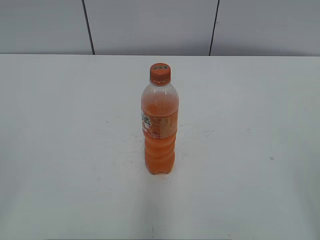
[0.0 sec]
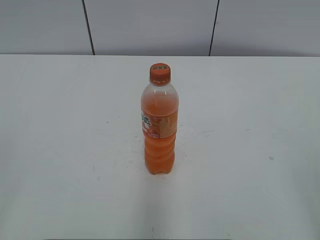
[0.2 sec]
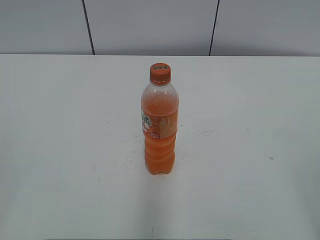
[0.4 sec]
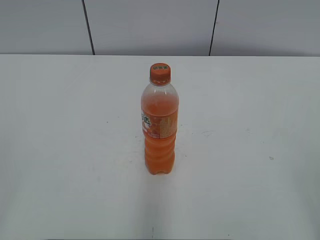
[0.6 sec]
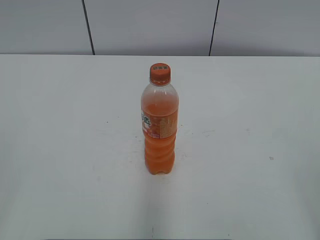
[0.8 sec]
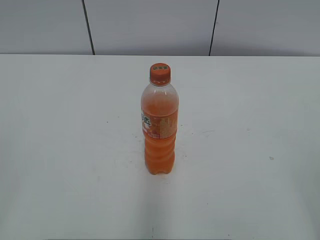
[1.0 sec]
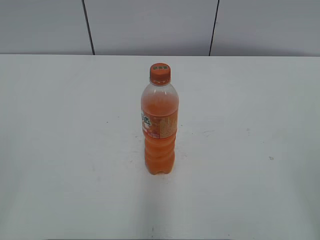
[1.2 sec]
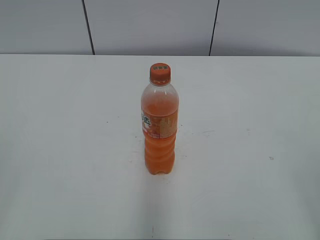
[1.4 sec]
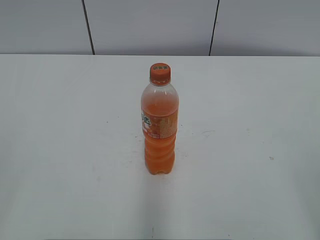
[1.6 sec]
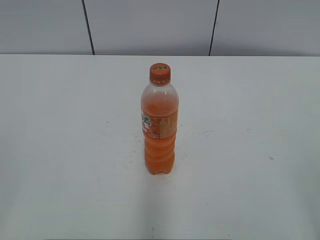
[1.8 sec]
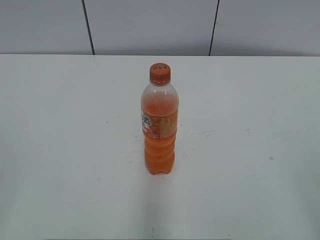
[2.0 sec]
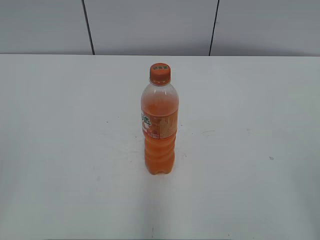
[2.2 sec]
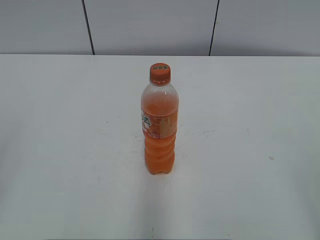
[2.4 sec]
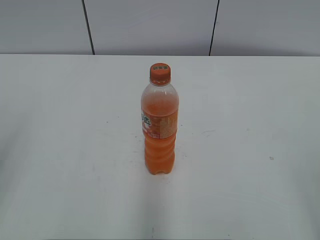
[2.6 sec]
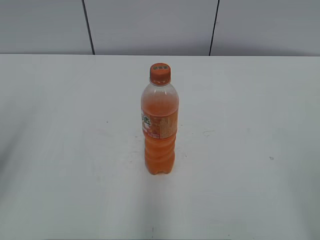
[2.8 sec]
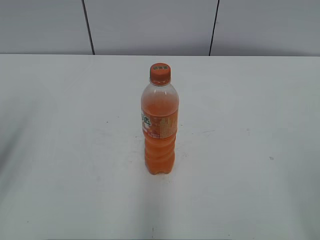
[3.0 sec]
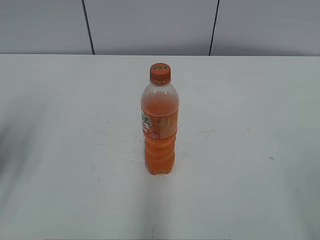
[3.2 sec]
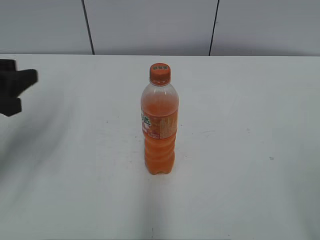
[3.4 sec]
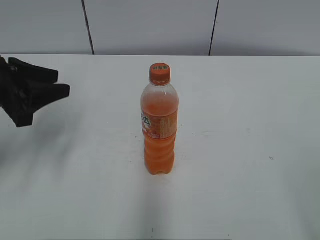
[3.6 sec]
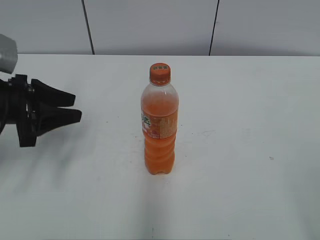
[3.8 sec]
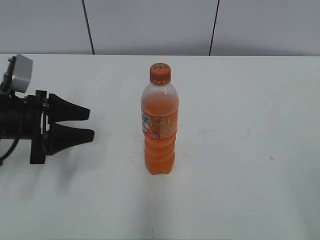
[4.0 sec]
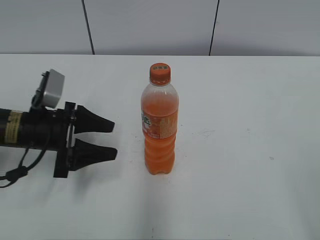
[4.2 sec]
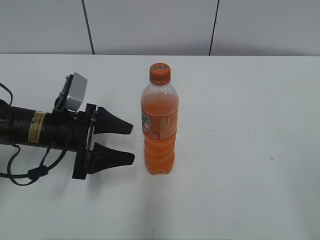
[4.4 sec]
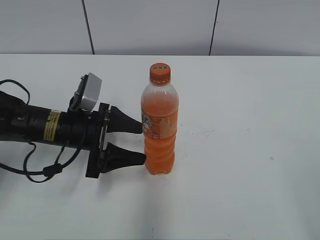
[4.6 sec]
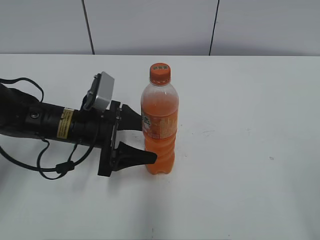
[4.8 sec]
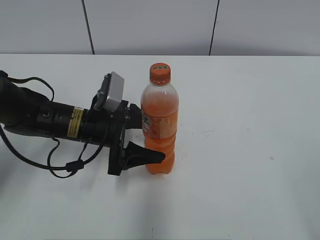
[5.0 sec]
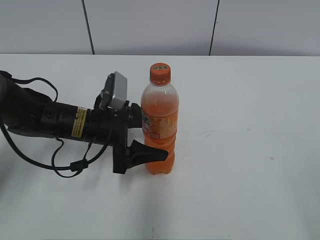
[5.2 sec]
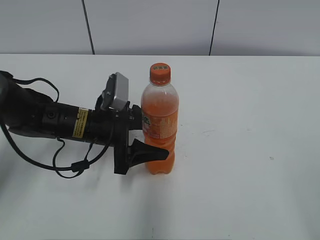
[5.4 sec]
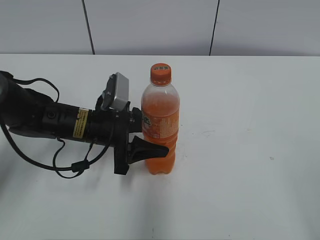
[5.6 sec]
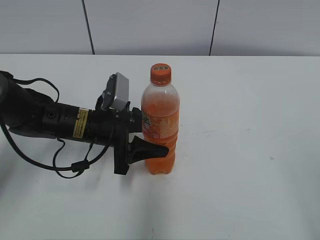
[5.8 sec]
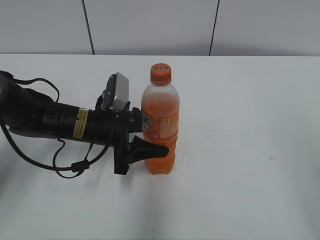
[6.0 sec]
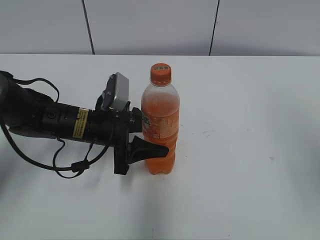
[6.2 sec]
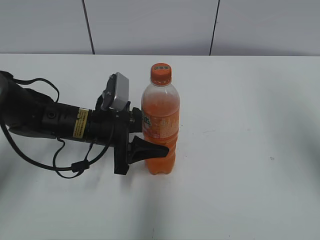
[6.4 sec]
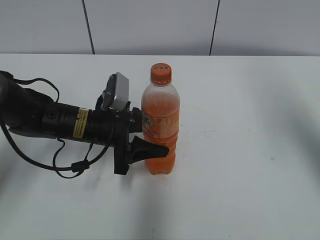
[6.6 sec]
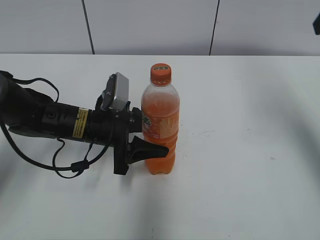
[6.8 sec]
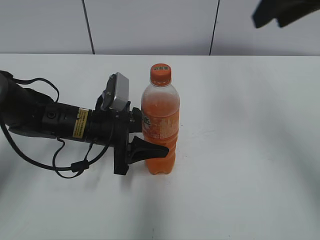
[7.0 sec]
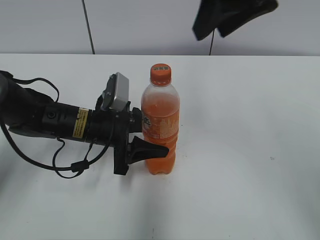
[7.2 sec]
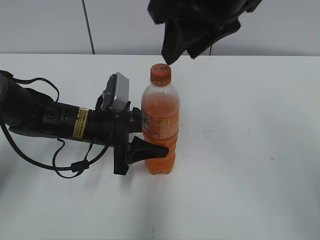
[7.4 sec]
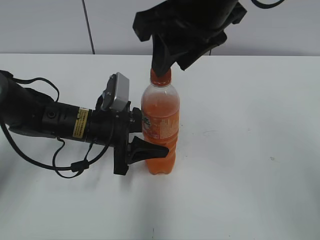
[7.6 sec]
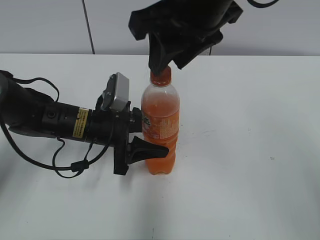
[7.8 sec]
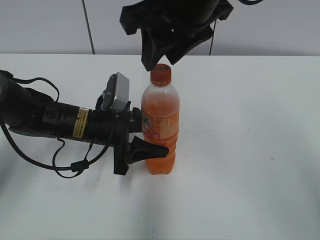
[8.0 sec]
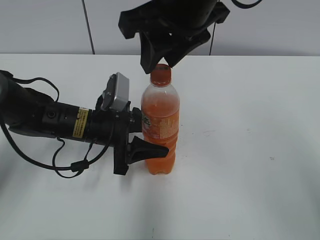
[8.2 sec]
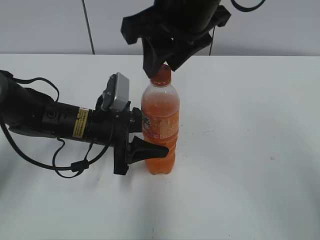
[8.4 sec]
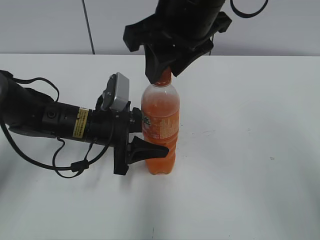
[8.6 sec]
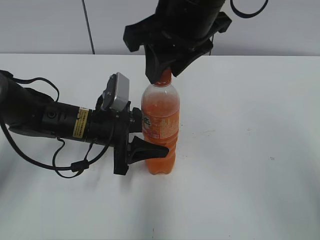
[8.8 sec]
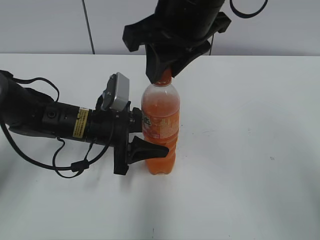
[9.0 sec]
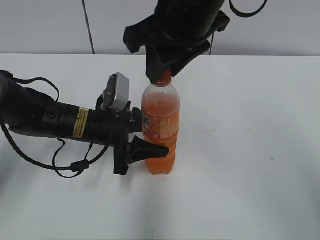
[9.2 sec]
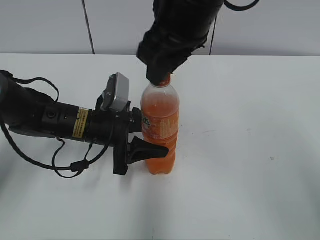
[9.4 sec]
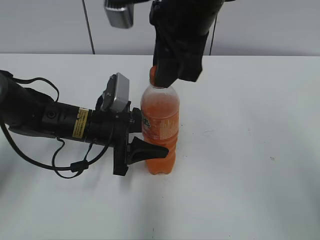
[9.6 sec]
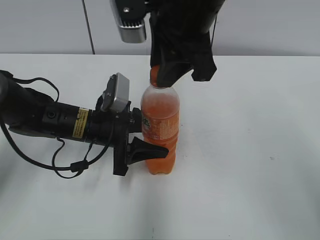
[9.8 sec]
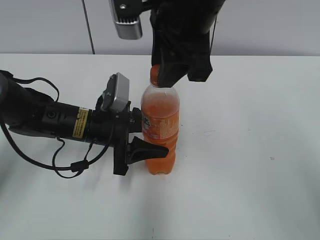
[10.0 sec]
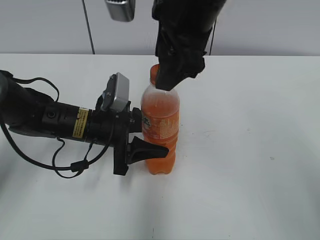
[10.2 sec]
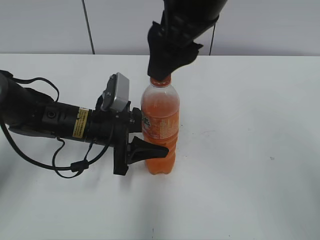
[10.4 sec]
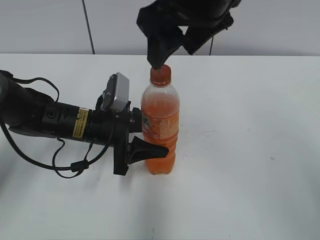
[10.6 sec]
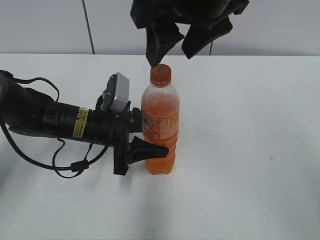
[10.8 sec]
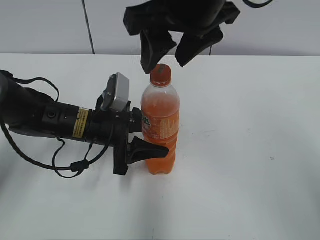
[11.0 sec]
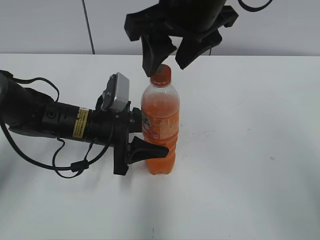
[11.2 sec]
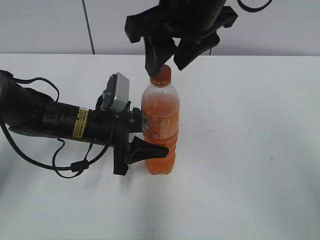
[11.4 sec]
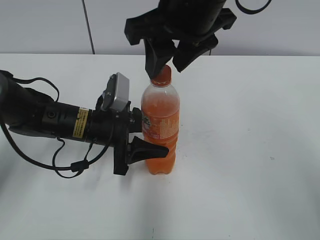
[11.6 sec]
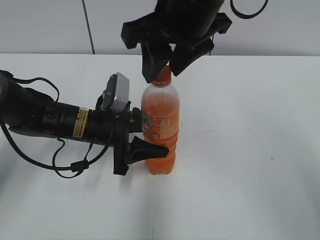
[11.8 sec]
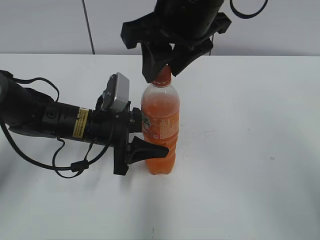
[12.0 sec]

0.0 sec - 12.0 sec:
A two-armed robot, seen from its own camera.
Step, 0.0 sec - 5.6 sec: Grab the Mirinda with the left hand.
3.0 sec - 4.4 sec: The left gripper heads downward, forward and to the right, covering roughly 25 cm, and opens its fingers.
4.4 sec - 6.0 sec: The right gripper heads upward, covering some 5 cm. The left gripper shifts about 5 cm to the right, and closes.
6.0 sec - 7.6 sec: The right gripper moves to the left and forward, some 35 cm, and closes.
7.6 sec - 9.0 sec: The grippers make only small movements.
9.0 sec - 10.4 sec: The right gripper opens.
10.4 sec - 12.0 sec: The right gripper closes its fingers.

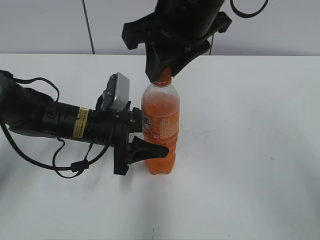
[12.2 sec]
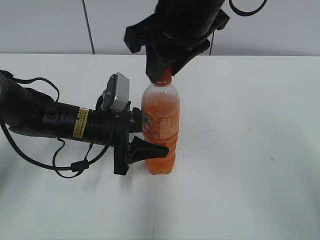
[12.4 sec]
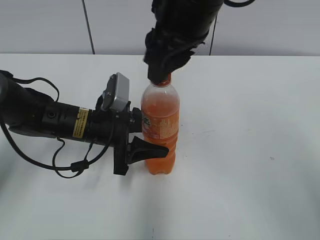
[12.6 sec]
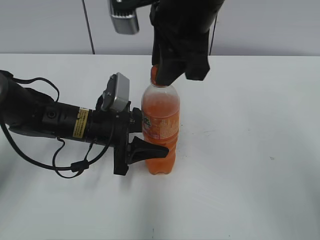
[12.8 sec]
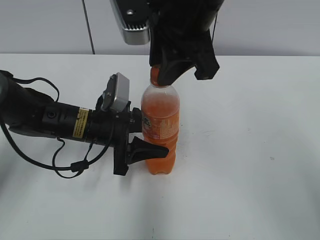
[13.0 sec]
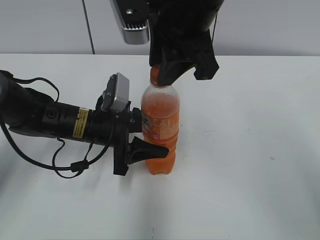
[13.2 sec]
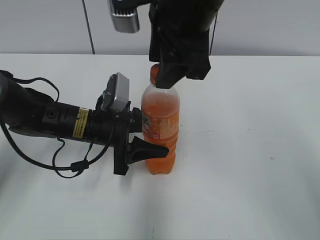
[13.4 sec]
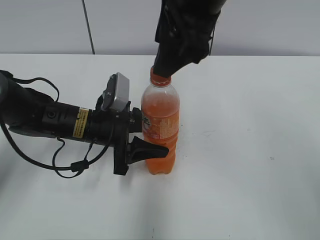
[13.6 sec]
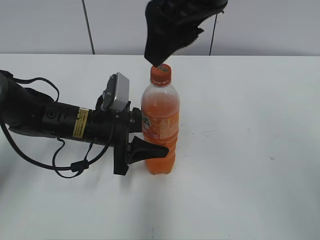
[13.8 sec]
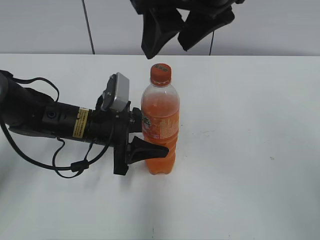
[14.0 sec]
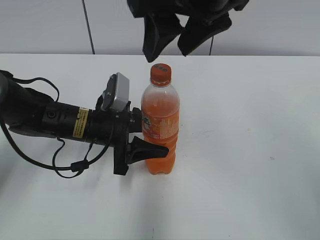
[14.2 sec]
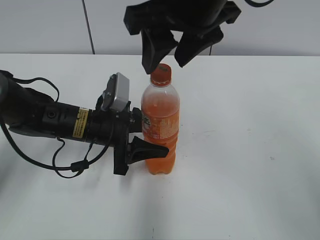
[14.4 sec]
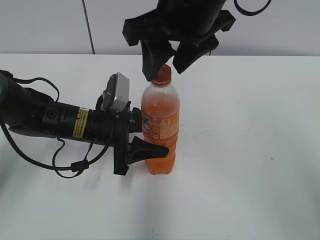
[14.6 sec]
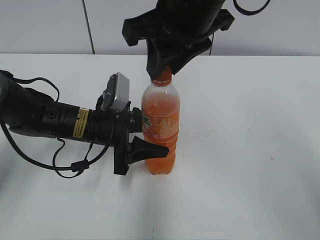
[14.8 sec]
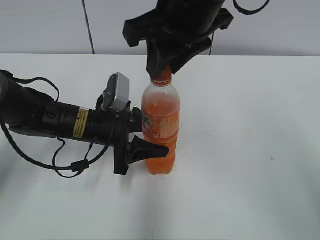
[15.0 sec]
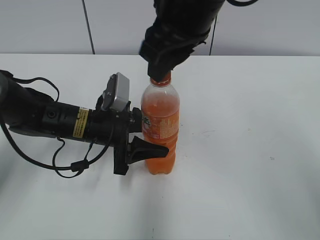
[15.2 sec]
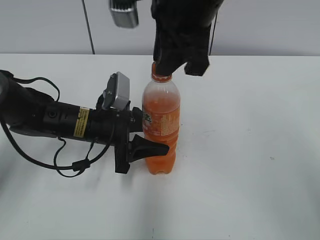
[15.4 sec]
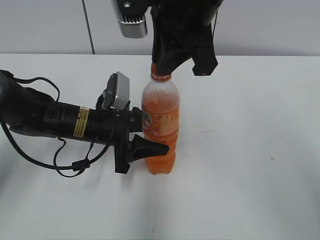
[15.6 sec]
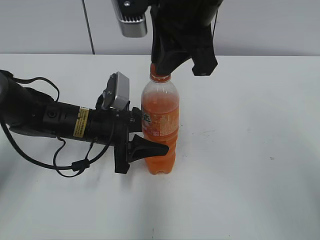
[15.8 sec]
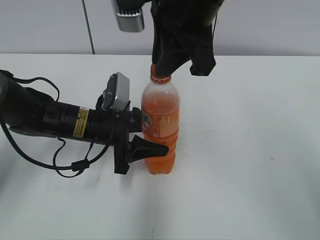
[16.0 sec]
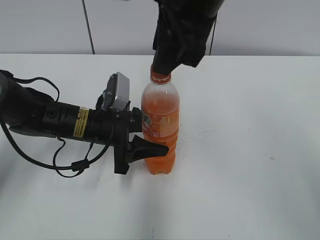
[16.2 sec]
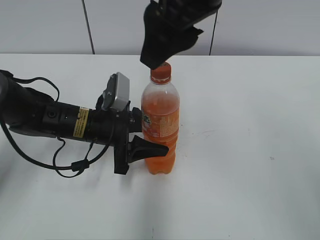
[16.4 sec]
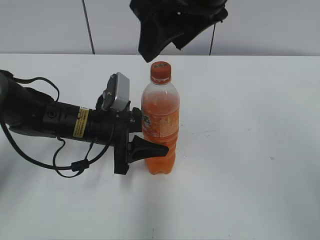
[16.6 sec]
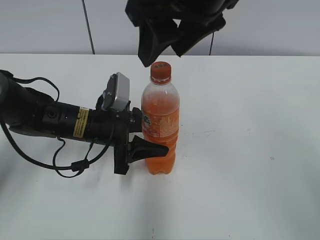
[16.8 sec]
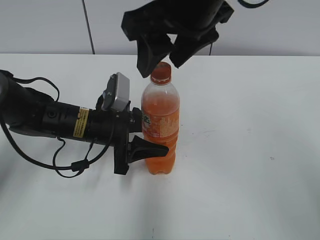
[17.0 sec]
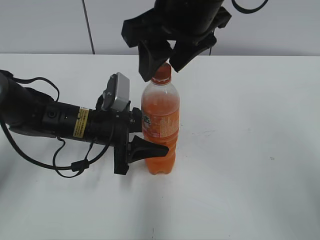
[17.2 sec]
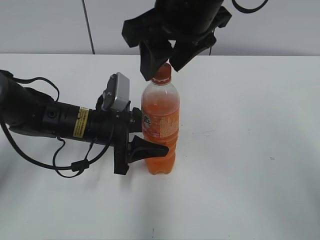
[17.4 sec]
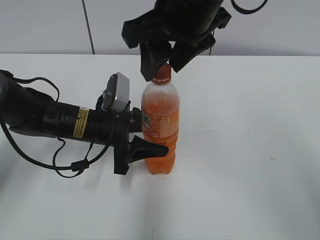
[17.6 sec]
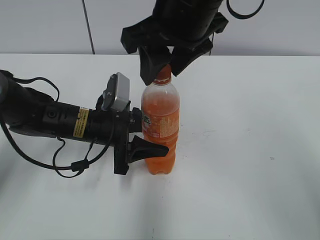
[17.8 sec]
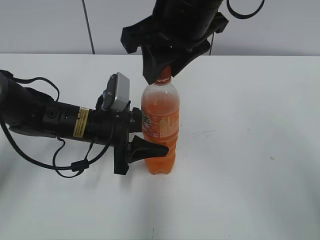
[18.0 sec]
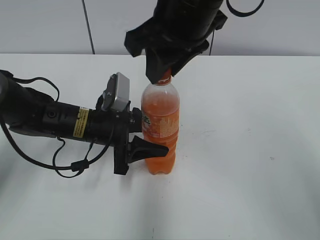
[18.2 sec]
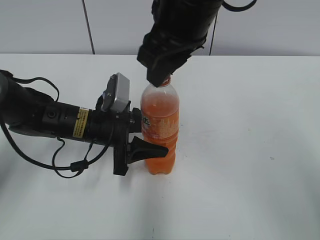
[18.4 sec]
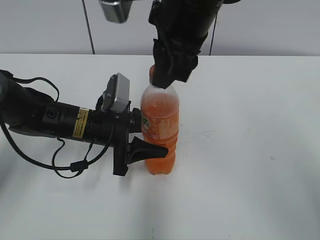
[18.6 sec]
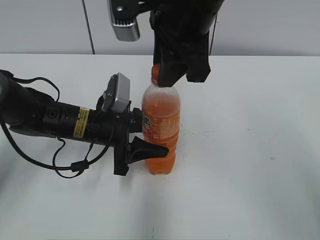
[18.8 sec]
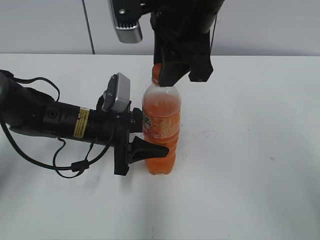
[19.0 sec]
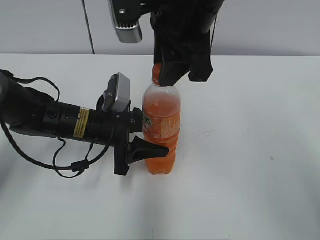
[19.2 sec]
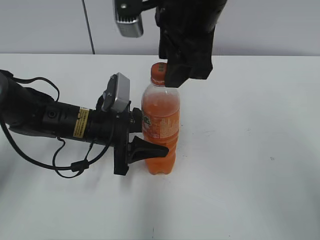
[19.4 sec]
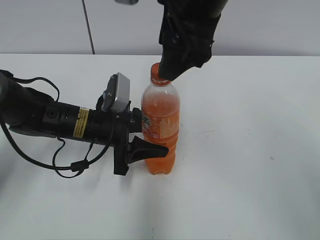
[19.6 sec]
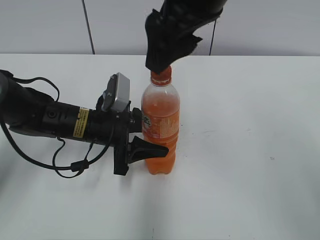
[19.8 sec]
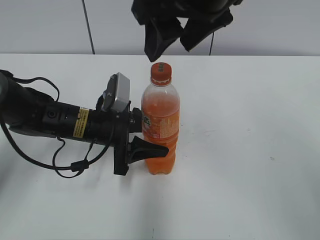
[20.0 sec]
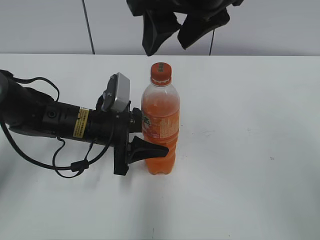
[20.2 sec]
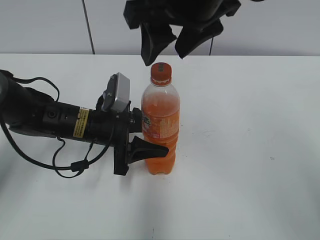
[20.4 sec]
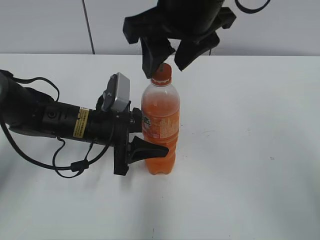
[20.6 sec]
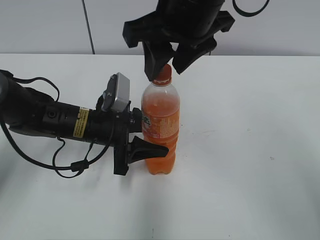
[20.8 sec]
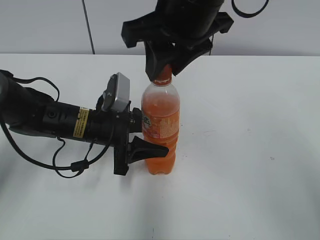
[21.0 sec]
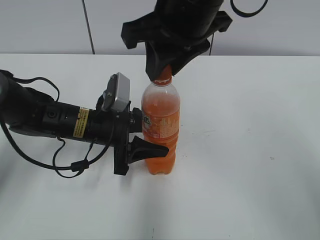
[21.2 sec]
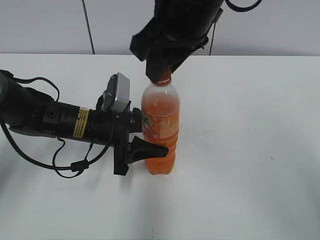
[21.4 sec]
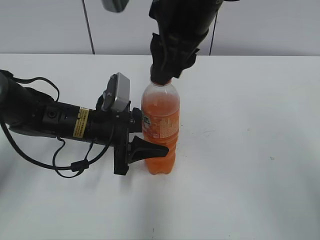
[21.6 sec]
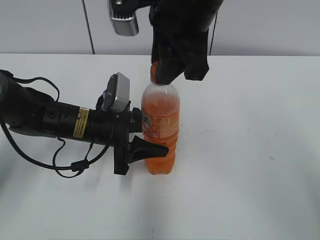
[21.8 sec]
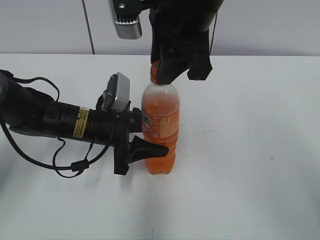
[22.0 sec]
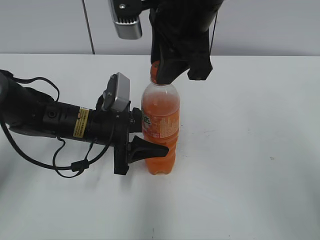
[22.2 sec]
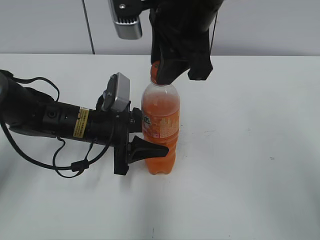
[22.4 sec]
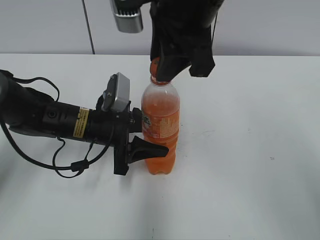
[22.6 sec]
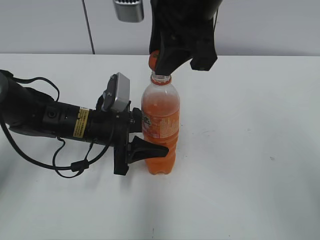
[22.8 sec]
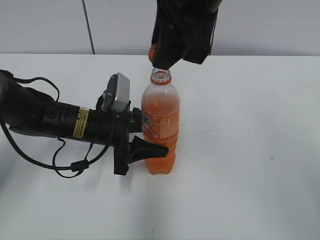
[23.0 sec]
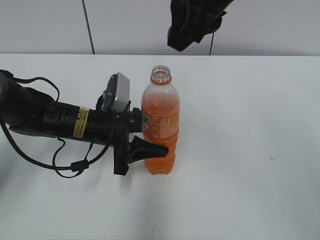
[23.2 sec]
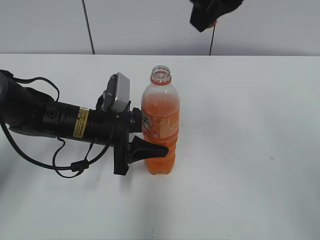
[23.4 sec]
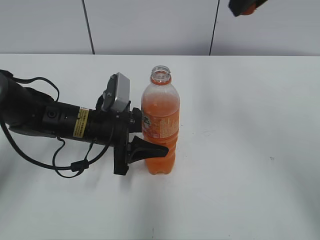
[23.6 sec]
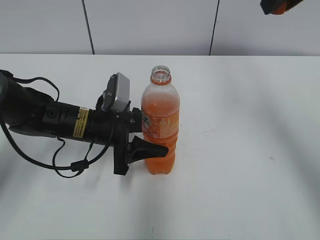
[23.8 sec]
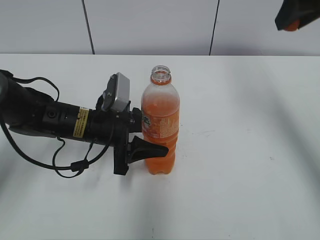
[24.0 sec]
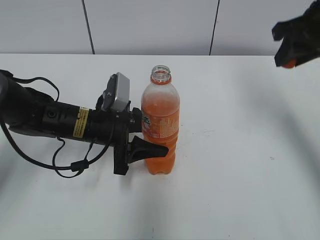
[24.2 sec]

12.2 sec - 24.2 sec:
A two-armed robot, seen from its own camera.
12.2 sec - 13.8 sec: The right gripper opens its fingers.
13.8 sec - 15.2 sec: The right gripper closes up.
15.2 sec - 16.6 sec: The right gripper opens its fingers.
16.6 sec - 18.2 sec: The right gripper changes place by approximately 5 cm, and closes up.
18.2 sec - 19.8 sec: The right gripper opens.
19.8 sec - 21.2 sec: The right gripper closes up.
22.6 sec - 24.2 sec: The right gripper is displaced to the right by about 20 cm.
